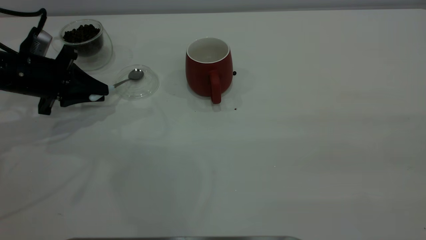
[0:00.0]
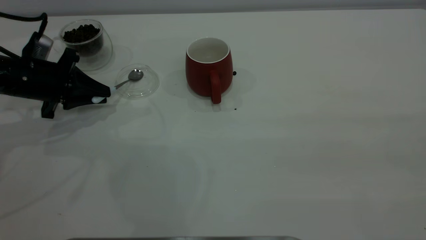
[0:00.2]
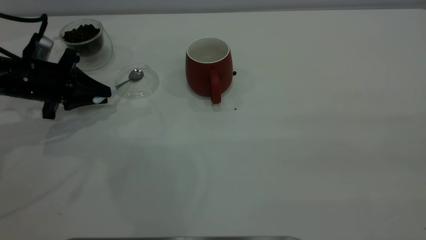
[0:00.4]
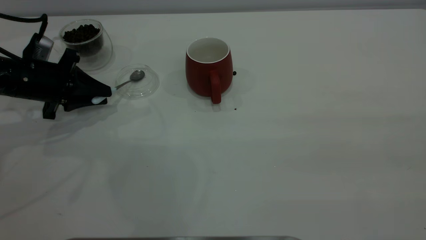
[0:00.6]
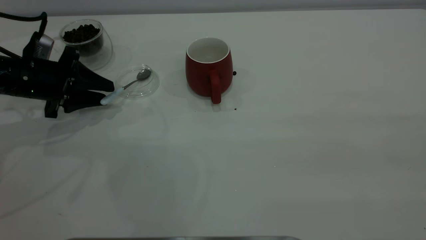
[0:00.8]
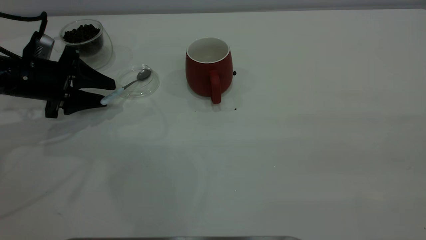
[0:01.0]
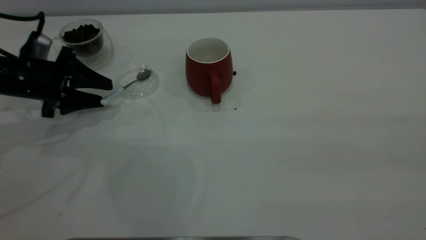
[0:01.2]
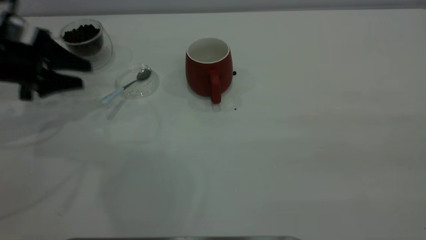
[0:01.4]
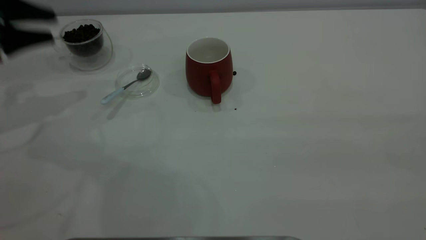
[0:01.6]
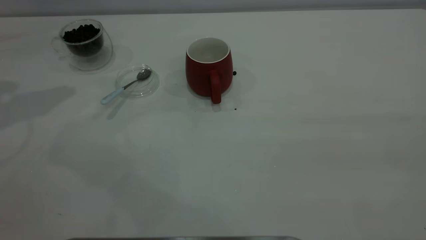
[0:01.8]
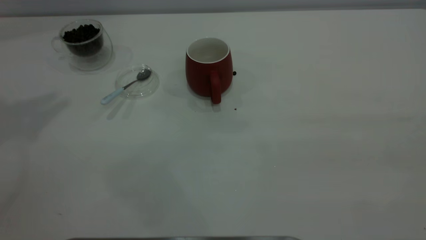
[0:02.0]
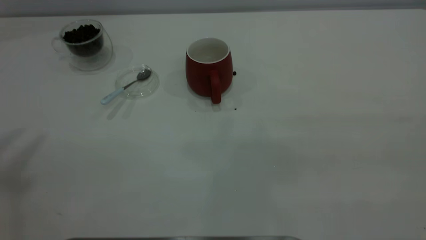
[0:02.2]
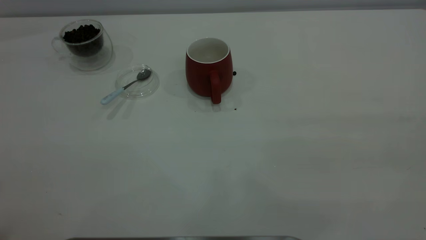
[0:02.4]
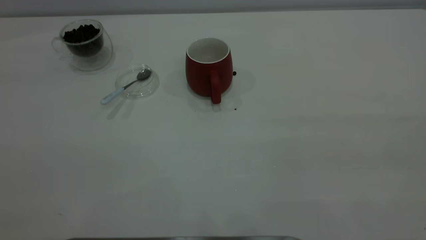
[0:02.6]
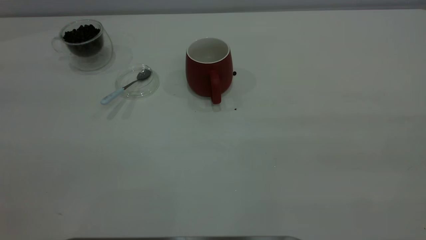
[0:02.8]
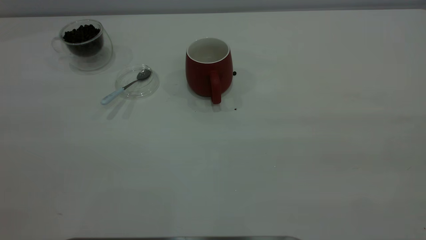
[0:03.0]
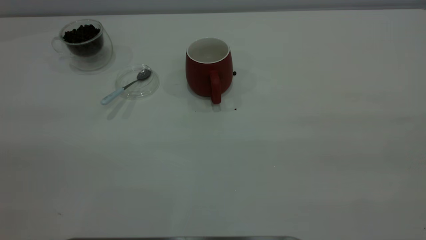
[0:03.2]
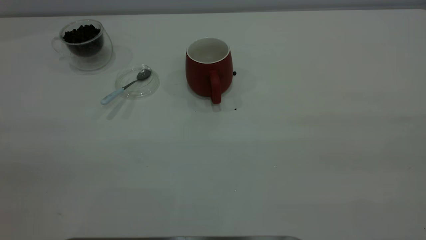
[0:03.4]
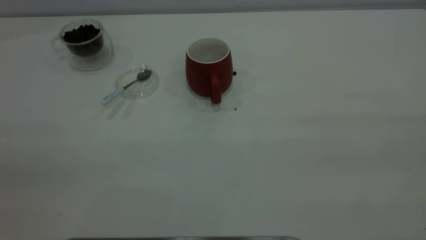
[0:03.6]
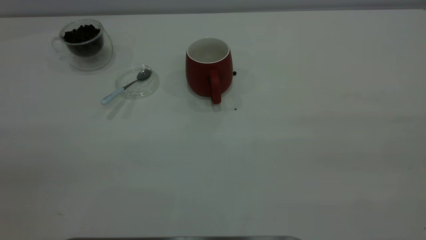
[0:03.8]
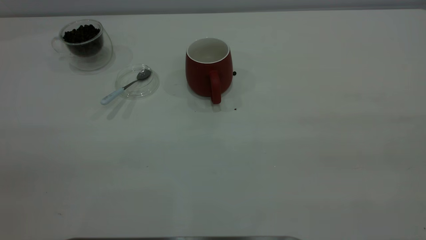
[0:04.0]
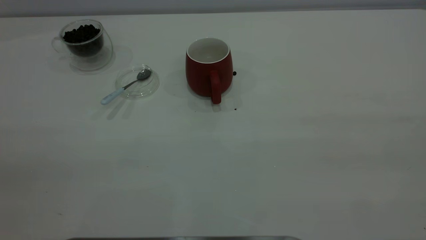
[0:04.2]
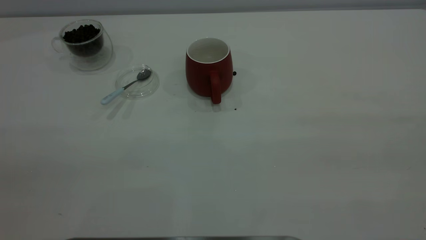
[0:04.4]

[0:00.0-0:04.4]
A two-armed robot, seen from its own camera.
Task of the whole recording: the right gripper place the red cup in the center of the table, the left gripper take the blue spoon from the cup lid and scoop out the coffee beans from the coffee cup and put them into the red cup, the left gripper put the spoon back into the cup lid.
0:00.0 to 0:01.4: The left gripper shifts by approximately 5 cm, and opens up.
0:01.4 to 0:03.0: The left gripper is displaced backward and upward by some 50 cm.

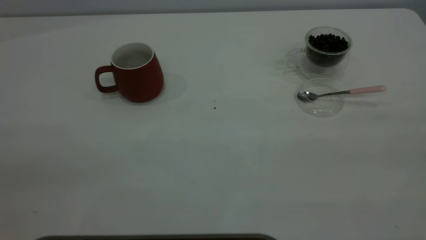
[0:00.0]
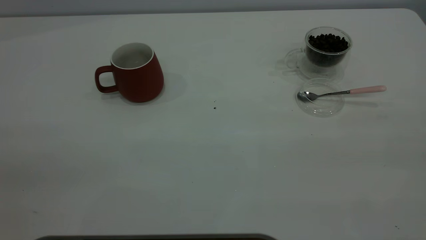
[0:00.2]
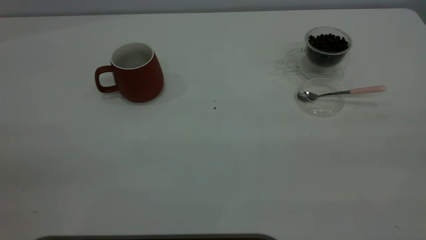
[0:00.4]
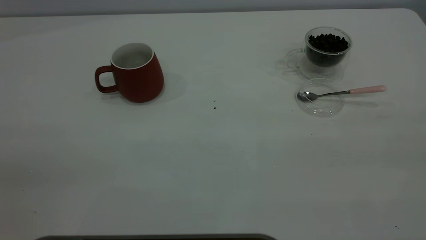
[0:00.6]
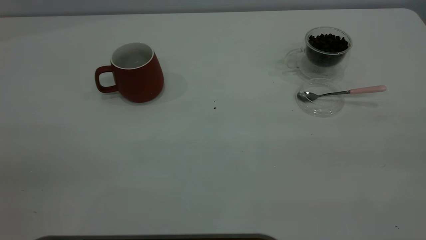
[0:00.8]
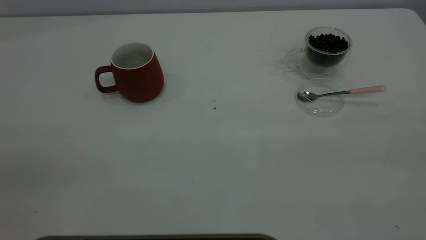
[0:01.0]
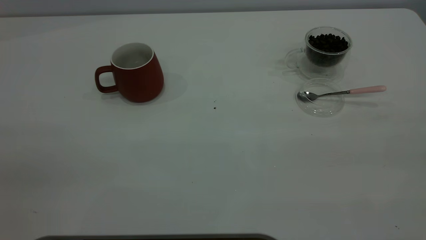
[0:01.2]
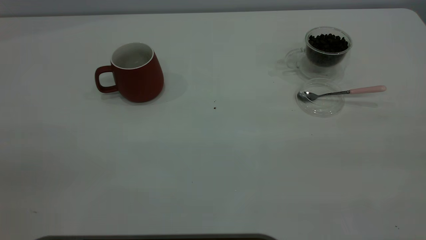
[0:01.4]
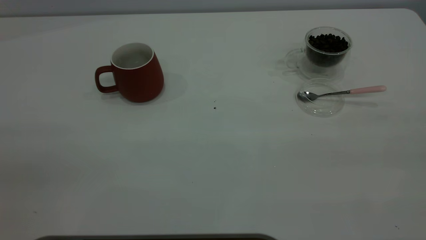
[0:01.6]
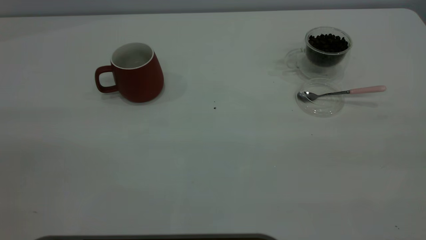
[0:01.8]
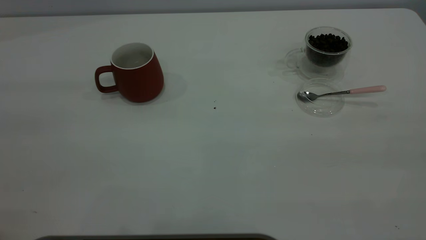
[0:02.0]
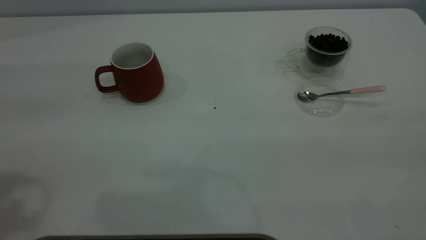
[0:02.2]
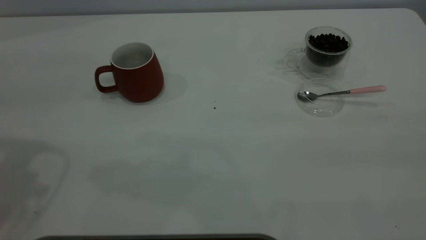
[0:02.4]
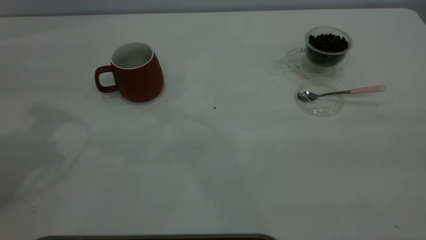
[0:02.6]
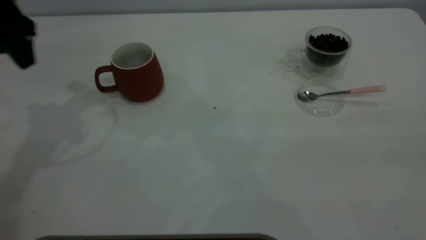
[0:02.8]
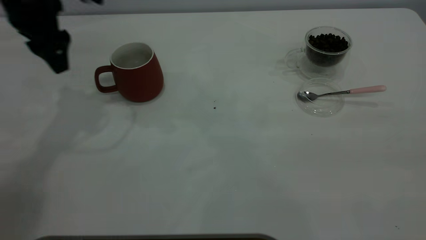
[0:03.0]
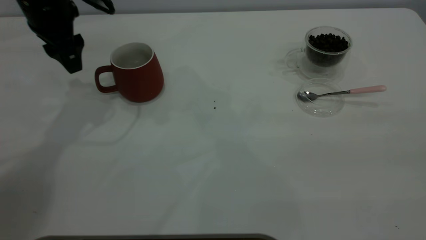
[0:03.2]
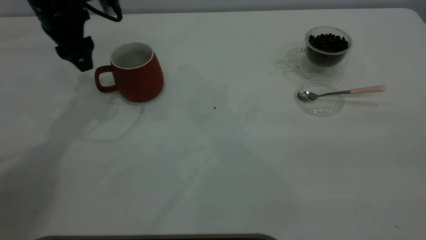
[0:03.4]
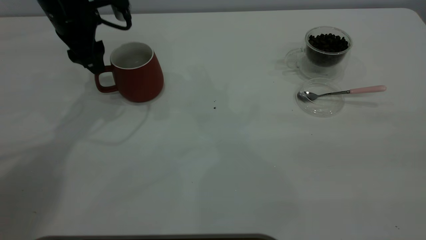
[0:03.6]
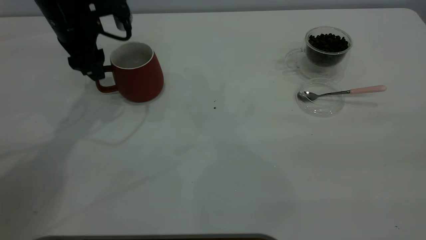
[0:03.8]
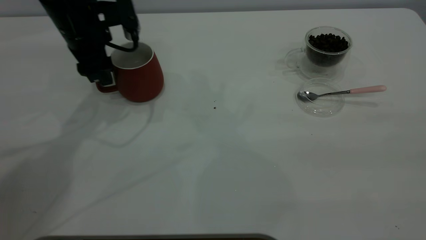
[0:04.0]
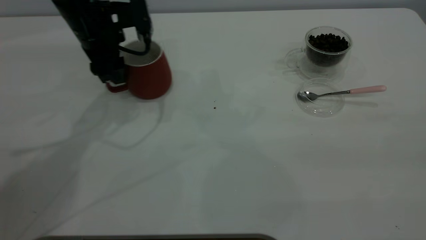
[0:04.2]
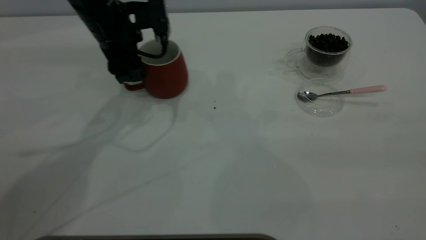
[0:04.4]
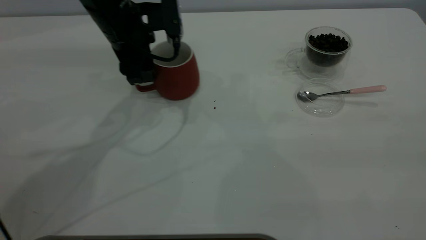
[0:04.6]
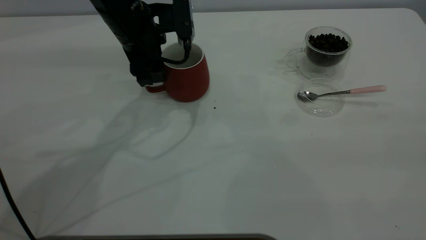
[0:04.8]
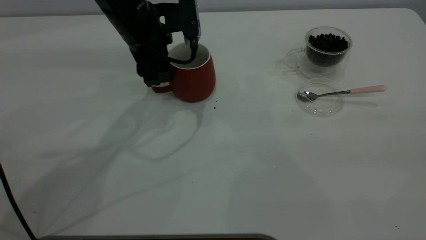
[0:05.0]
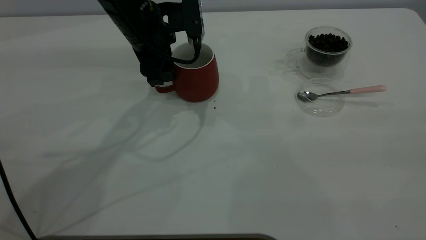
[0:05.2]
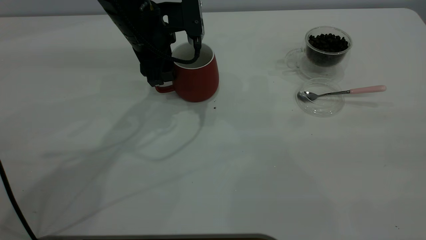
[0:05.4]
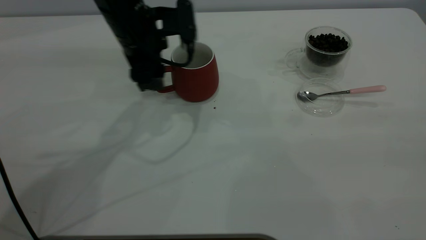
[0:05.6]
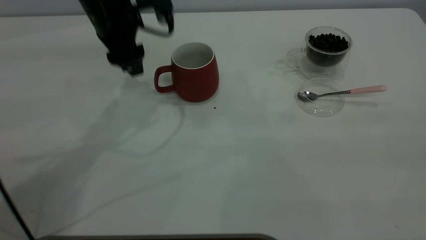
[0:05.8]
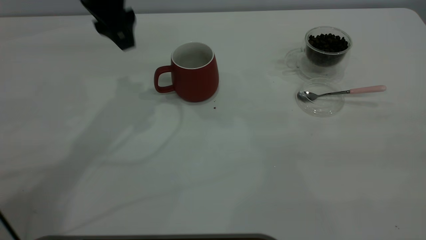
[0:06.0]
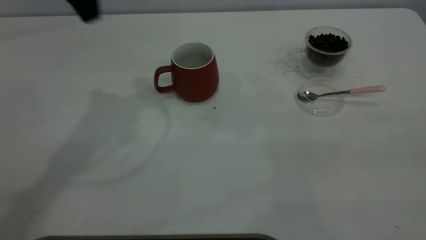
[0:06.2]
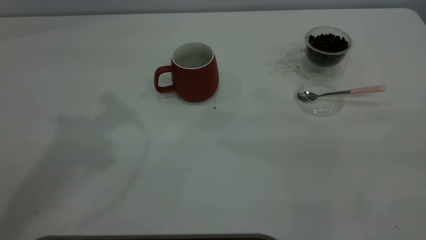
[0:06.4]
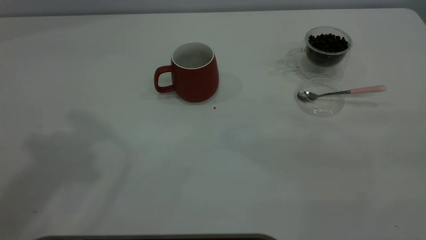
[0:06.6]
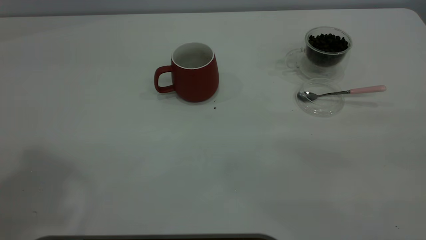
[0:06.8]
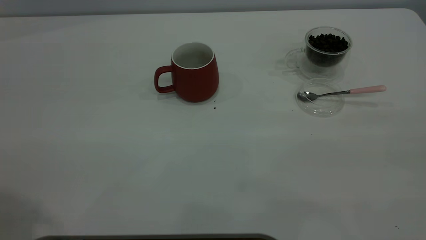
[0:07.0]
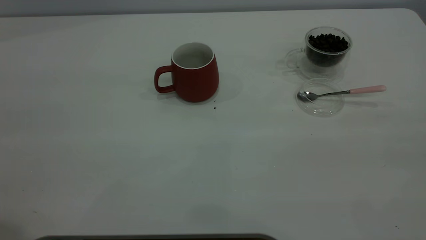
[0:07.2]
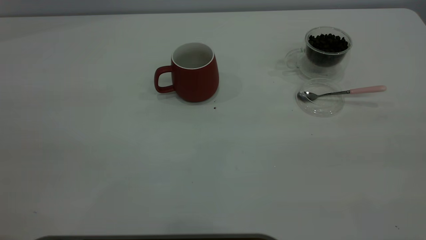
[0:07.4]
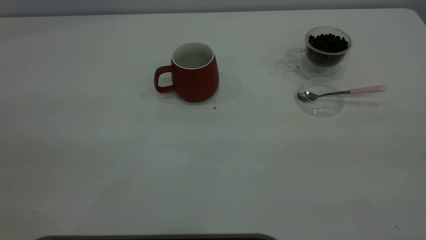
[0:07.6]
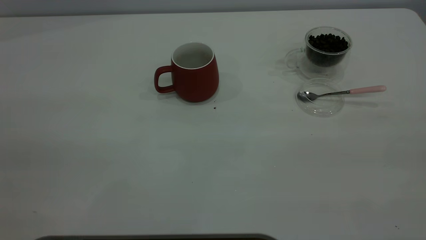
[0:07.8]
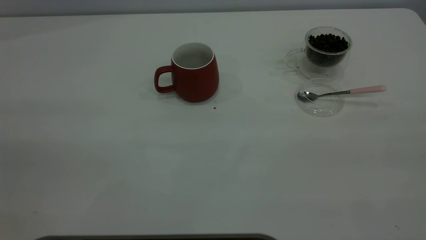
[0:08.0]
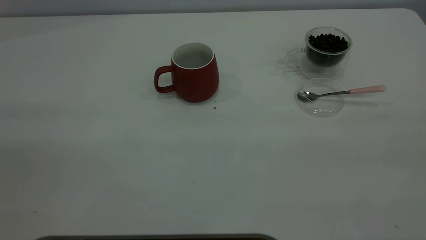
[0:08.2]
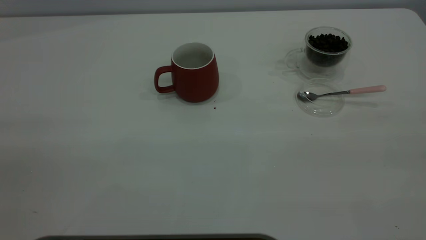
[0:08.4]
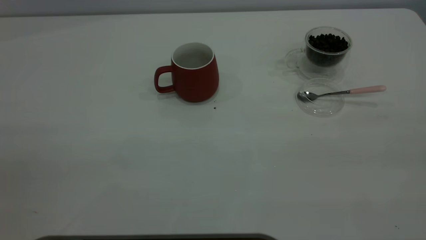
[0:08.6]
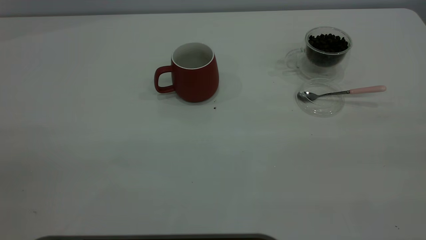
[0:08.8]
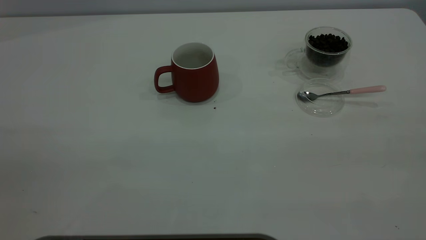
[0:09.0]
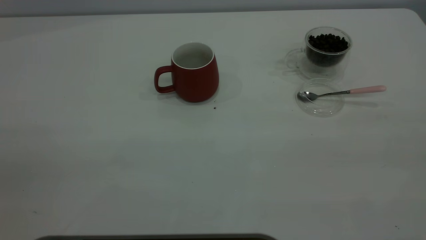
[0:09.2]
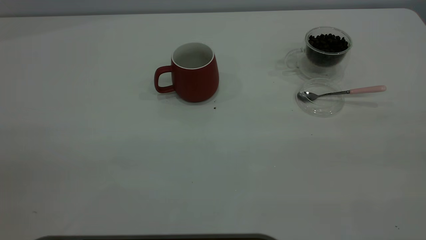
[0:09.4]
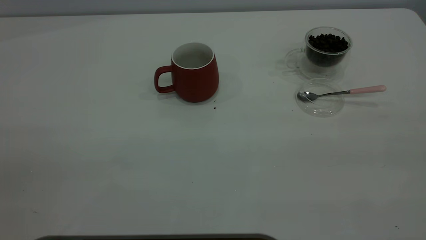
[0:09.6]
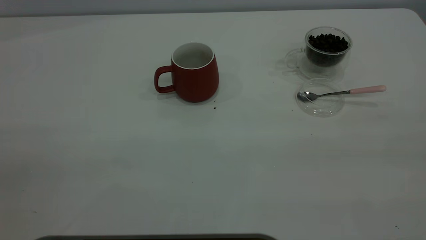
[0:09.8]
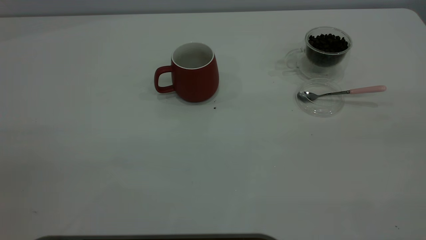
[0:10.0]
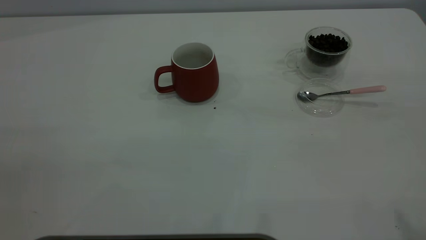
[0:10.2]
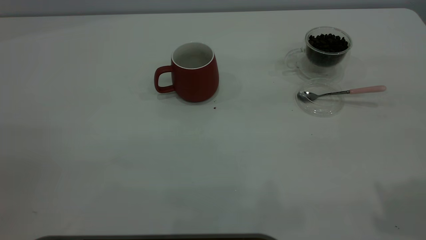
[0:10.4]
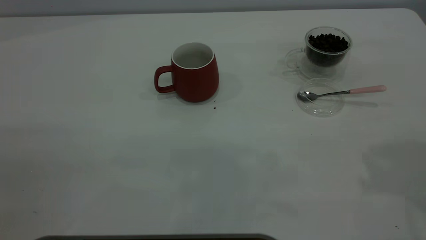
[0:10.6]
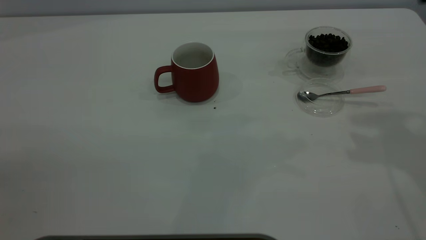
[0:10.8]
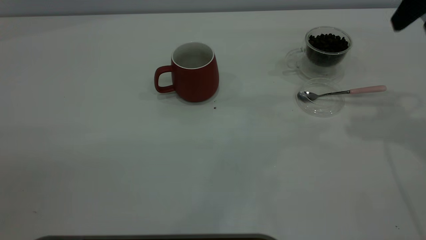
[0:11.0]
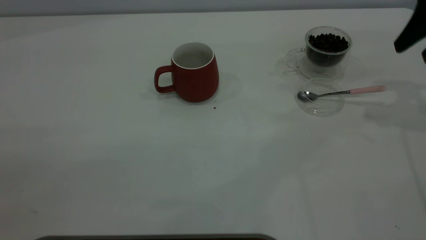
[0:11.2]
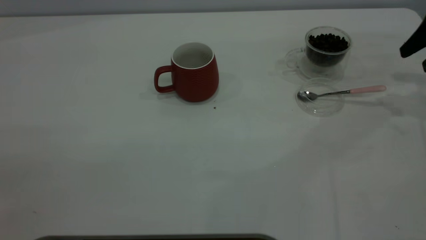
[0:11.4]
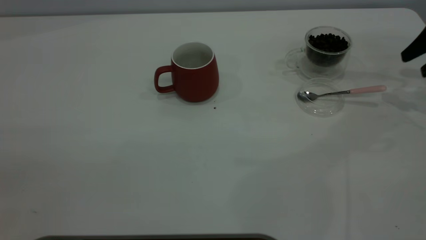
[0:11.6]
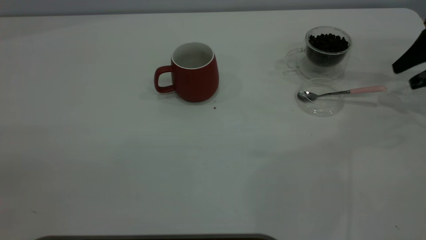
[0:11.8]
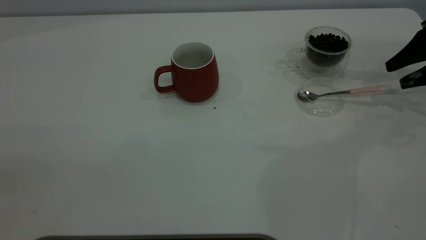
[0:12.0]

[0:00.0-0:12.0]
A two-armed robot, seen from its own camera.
Task of the whole recording: the left gripper place the red cup in the center of the table, the right gripper take the pink spoon from the cup lid and scoop out the coffee beans from the coffee cup and put them into the red cup, the right gripper put the spoon back into the cup lid.
Step, 0:00.0 to 0:05.8: Move the cup to the center of view.
0:00.0 to 0:01.6: Both grippers stay put.
0:01.6 to 0:03.0: The left gripper is displaced forward by some 40 cm.
0:03.0 to 0:04.4: The left gripper shifts roughly 10 cm to the right and downward.
0:04.4 to 0:06.0: The left gripper is displaced upward by roughly 10 cm.
0:06.0 to 0:07.6: The left gripper heads backward and to the left, covering approximately 35 cm.
0:10.4 to 0:12.0: The right gripper is displaced downward, forward and to the right by some 35 cm.
